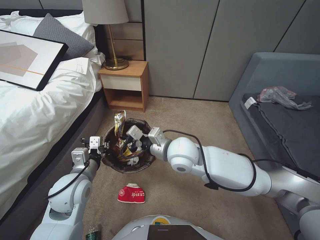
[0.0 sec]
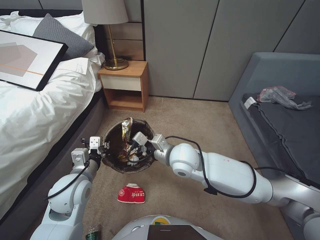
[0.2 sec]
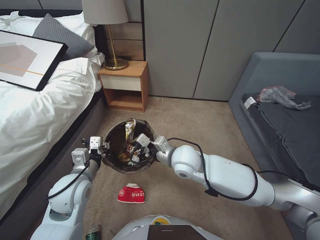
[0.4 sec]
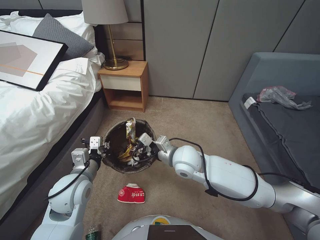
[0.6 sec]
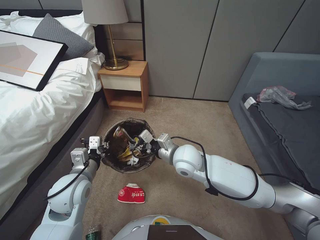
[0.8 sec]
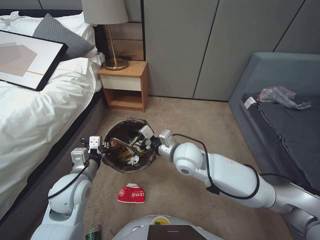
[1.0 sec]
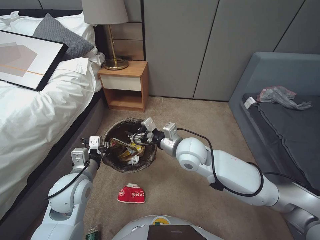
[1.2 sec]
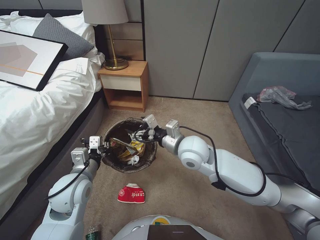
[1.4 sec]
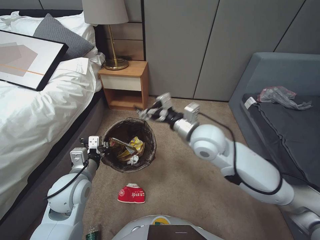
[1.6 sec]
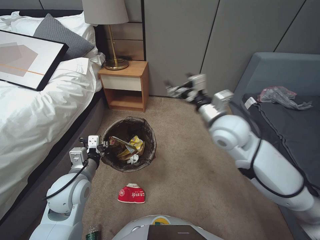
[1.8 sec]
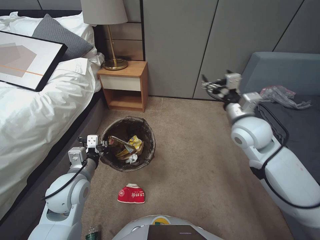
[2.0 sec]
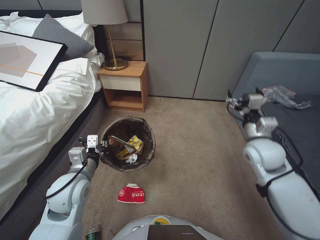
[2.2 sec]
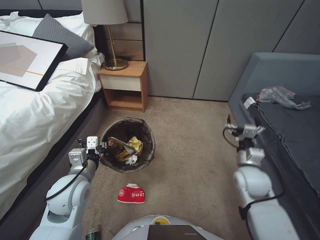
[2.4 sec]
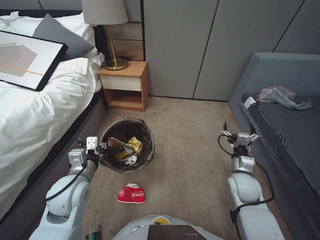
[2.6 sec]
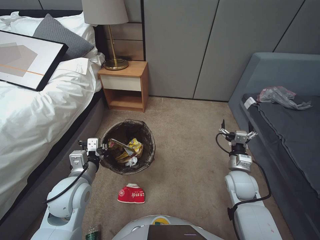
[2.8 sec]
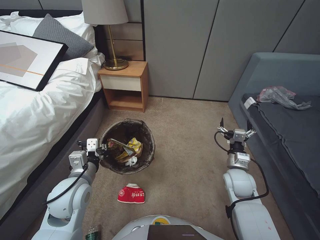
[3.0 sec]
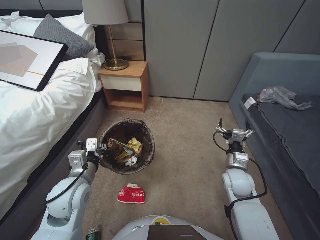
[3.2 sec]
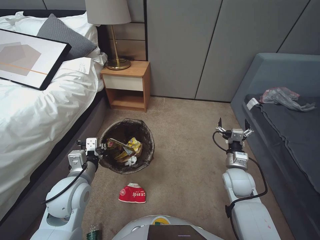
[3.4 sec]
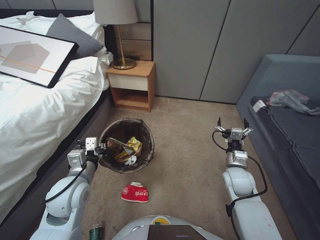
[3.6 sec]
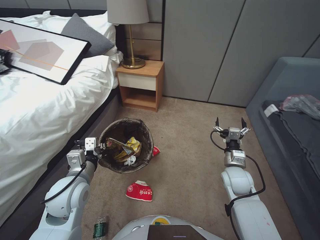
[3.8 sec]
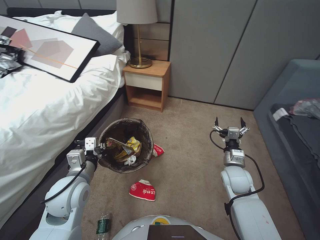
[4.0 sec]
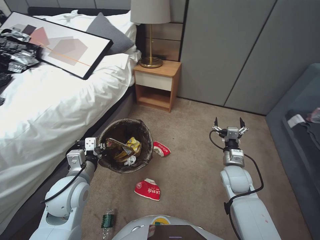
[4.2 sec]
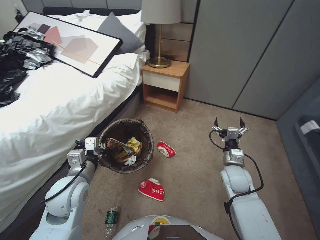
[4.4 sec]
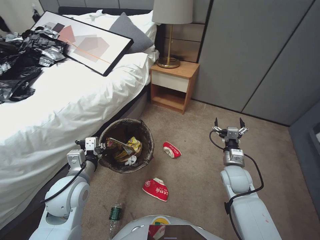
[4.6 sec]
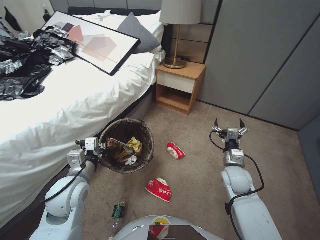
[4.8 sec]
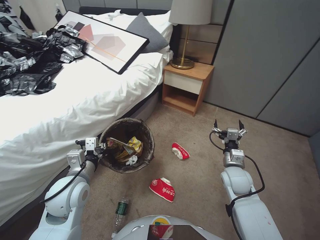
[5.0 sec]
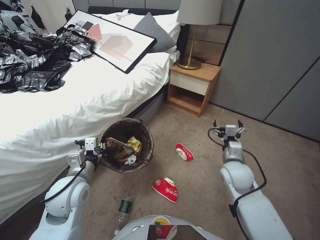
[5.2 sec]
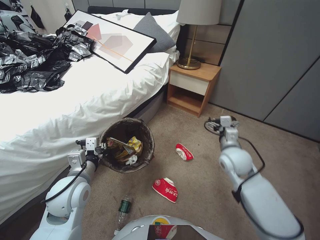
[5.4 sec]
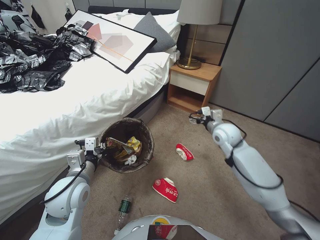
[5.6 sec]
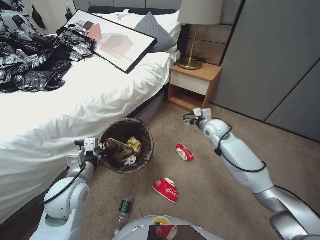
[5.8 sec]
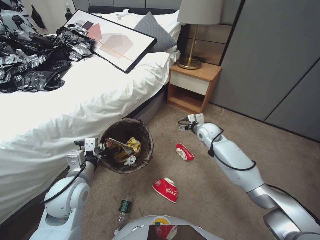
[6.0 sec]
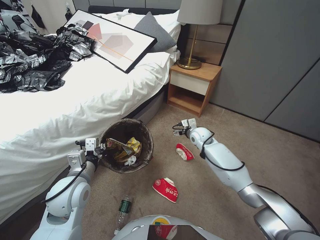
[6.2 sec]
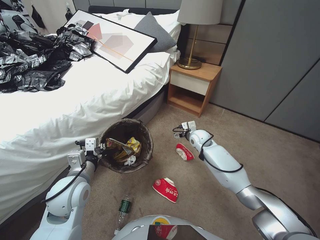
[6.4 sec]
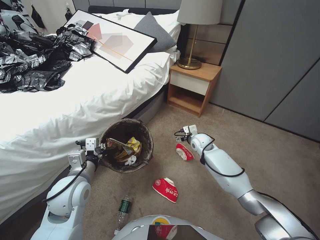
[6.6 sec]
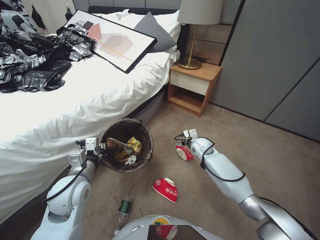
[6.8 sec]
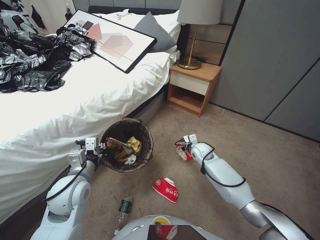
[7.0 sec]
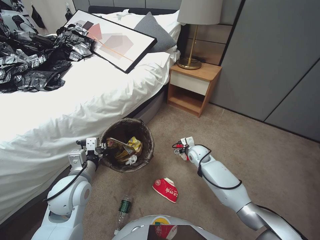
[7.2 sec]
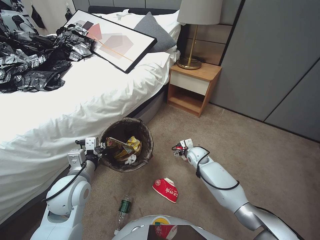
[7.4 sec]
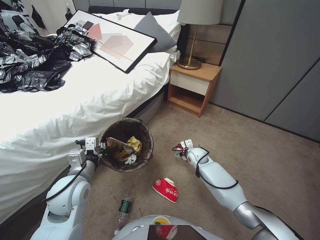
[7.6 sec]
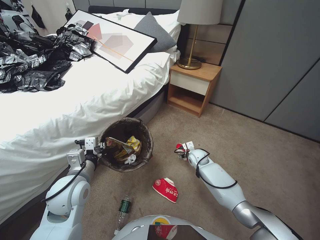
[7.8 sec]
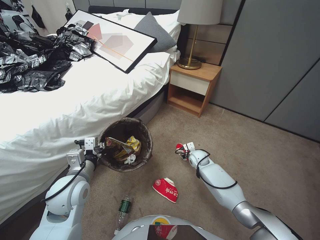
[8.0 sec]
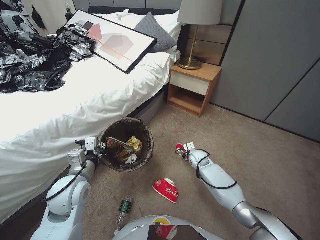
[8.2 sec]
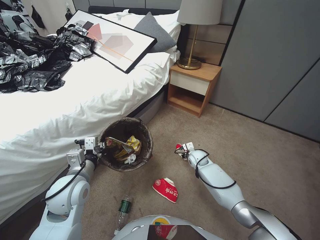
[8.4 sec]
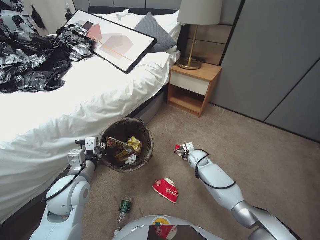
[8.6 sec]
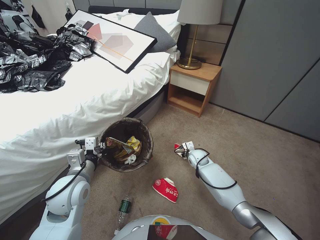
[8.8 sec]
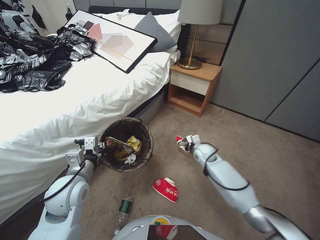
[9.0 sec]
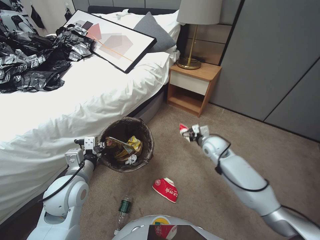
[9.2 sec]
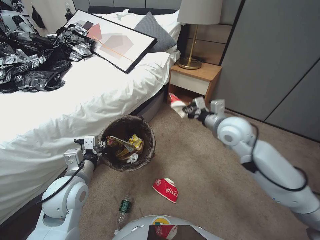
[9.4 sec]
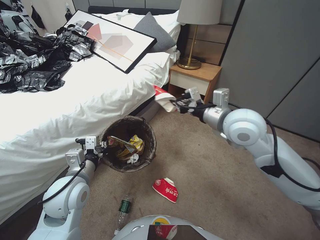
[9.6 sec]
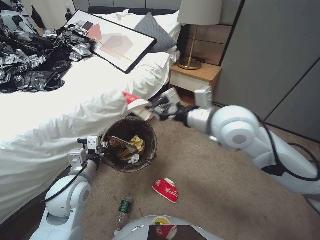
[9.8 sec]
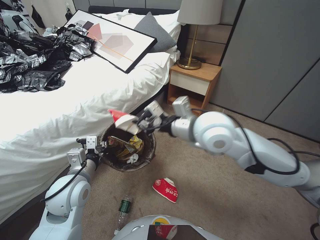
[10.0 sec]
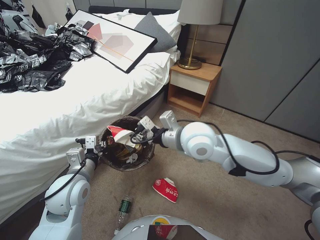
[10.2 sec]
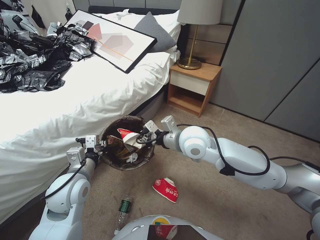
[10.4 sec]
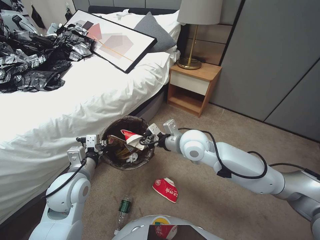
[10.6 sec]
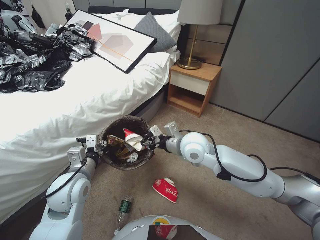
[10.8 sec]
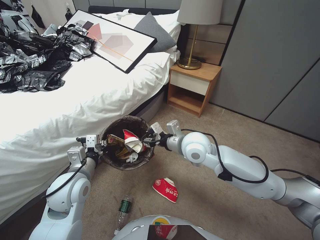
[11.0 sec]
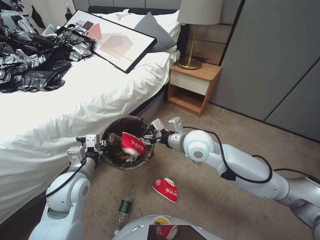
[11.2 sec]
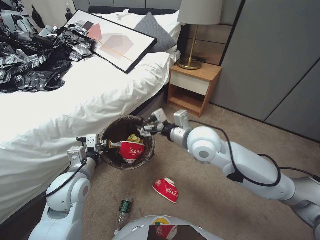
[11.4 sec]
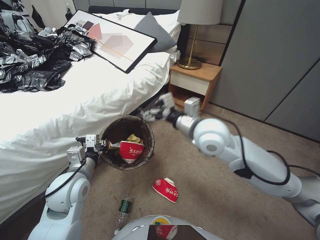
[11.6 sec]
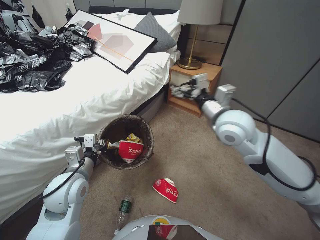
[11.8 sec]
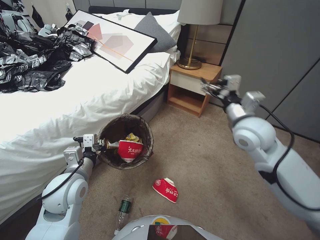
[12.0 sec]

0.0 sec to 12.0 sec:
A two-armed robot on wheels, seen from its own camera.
Task of the whole recording: Pick up the trash bin, then pick up the garbage from the floor and place it into the trash bin.
0.0 sec to 1.6 sec: The right gripper opens its fingers.
1.6 sec to 3.0 sec: The right gripper shifts roughly 25 cm to the right and downward.
4.4 sec to 6.0 sec: The right gripper goes roughly 20 cm forward.
6.0 sec to 7.6 sec: The right gripper moves downward, some 15 cm.
7.6 sec to 9.0 sec: The right gripper closes up.
9.0 sec to 10.4 sec: The right gripper travels upward by about 30 cm.
10.4 sec to 12.0 sec: The right gripper goes approximately 15 cm to the right, and opens.

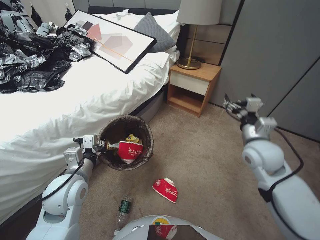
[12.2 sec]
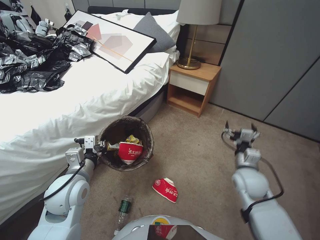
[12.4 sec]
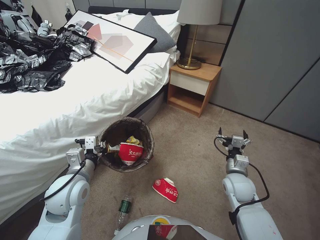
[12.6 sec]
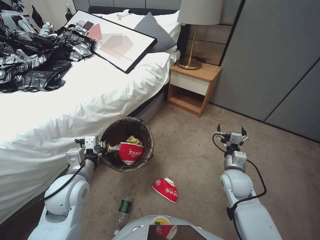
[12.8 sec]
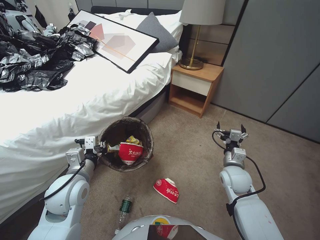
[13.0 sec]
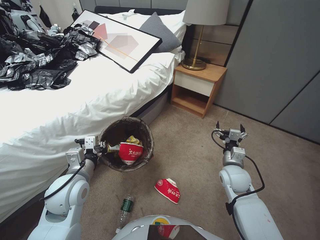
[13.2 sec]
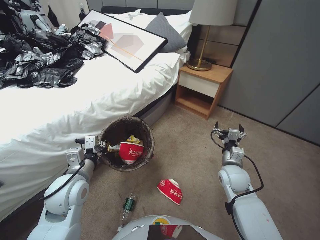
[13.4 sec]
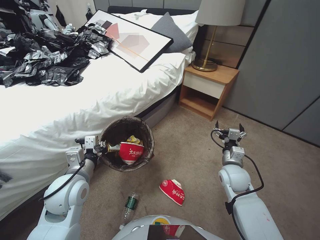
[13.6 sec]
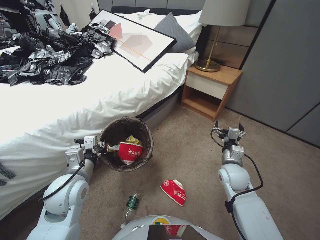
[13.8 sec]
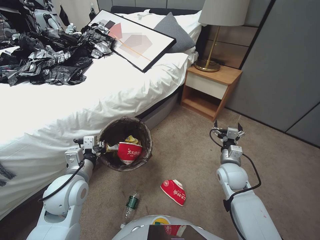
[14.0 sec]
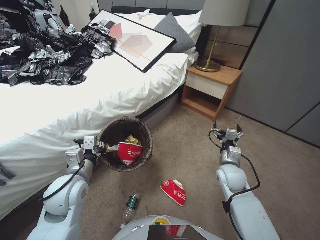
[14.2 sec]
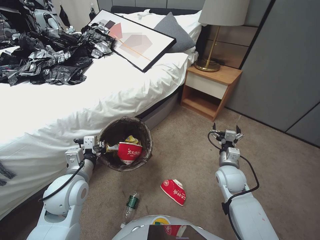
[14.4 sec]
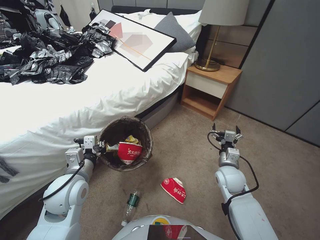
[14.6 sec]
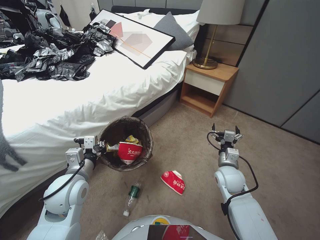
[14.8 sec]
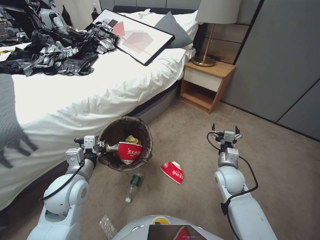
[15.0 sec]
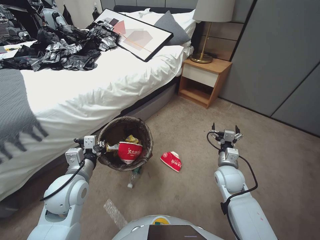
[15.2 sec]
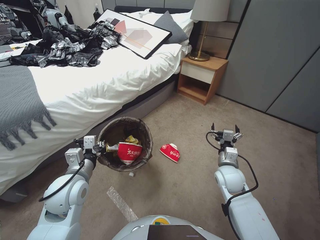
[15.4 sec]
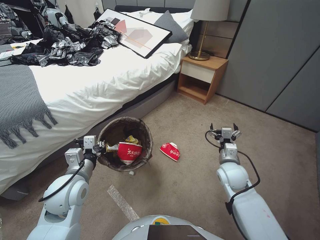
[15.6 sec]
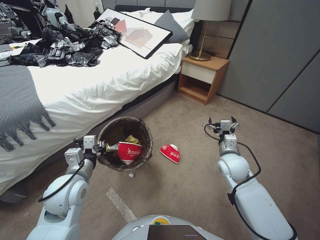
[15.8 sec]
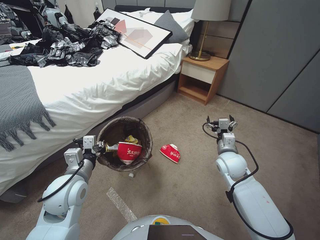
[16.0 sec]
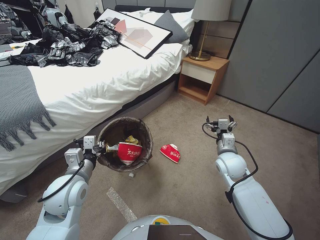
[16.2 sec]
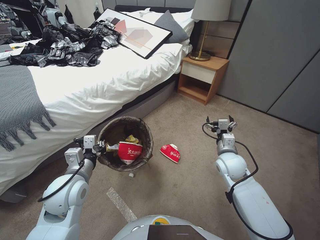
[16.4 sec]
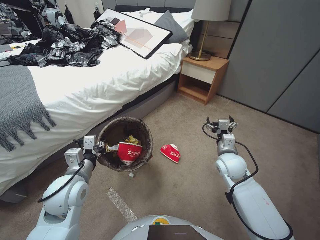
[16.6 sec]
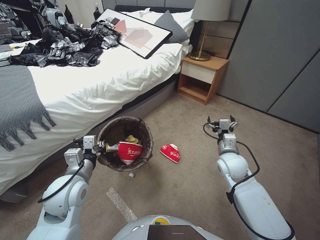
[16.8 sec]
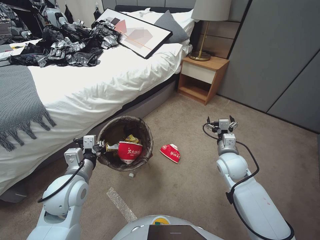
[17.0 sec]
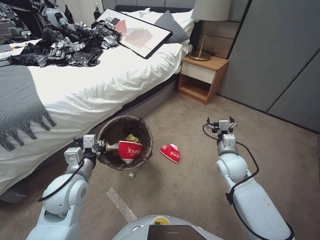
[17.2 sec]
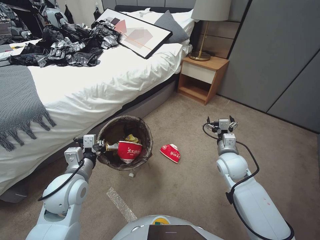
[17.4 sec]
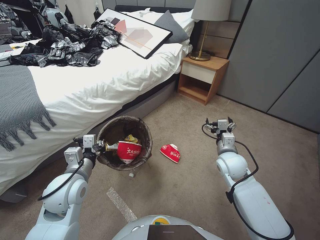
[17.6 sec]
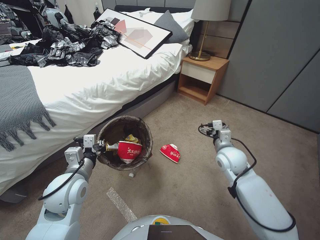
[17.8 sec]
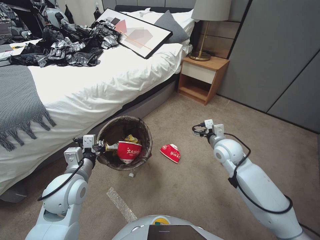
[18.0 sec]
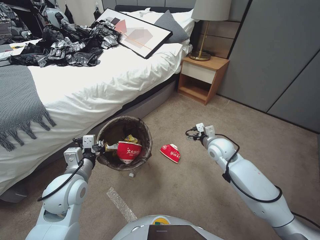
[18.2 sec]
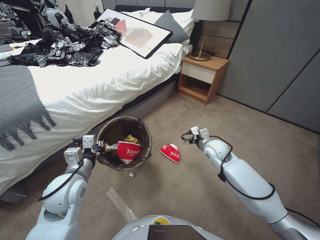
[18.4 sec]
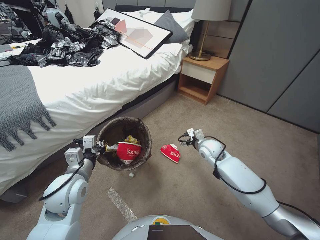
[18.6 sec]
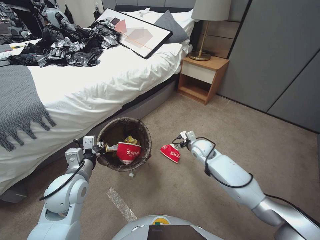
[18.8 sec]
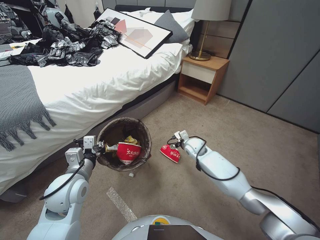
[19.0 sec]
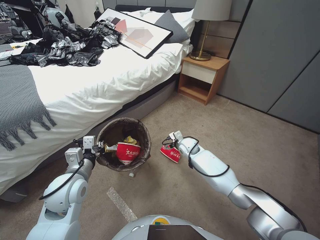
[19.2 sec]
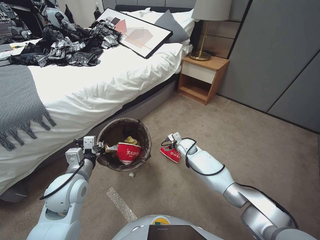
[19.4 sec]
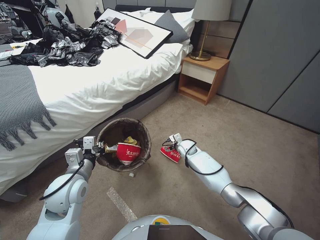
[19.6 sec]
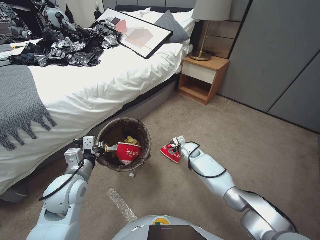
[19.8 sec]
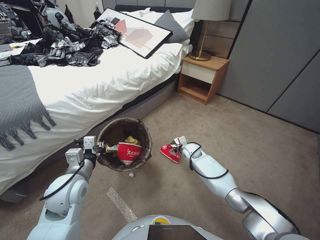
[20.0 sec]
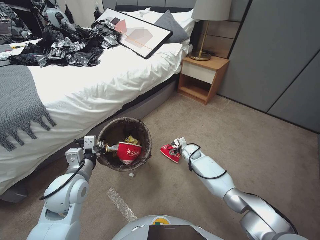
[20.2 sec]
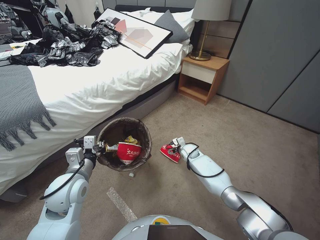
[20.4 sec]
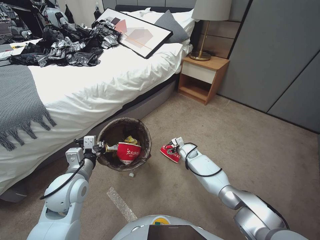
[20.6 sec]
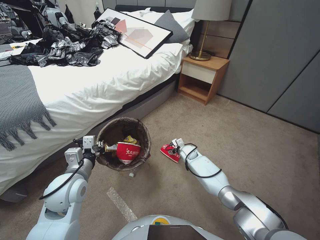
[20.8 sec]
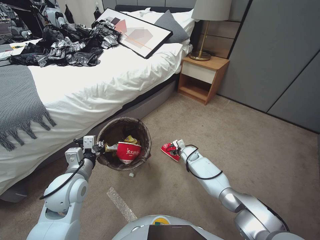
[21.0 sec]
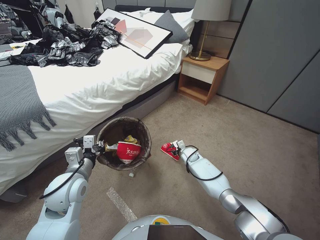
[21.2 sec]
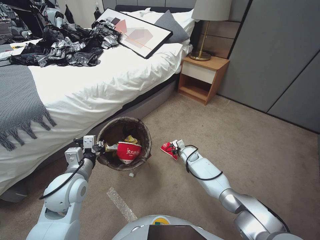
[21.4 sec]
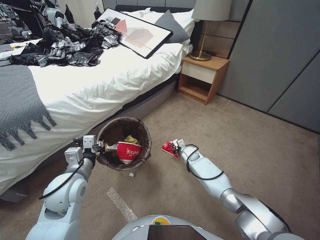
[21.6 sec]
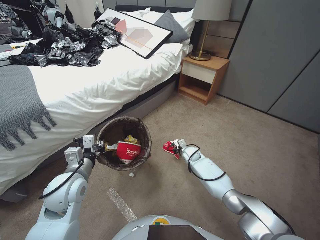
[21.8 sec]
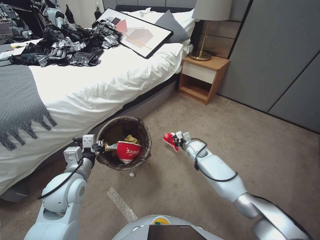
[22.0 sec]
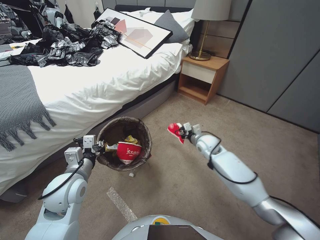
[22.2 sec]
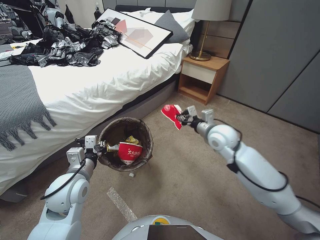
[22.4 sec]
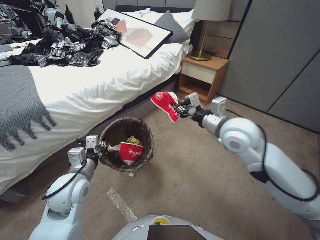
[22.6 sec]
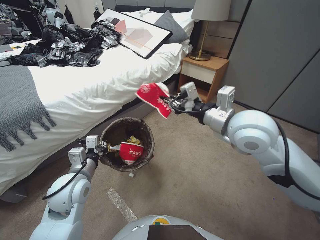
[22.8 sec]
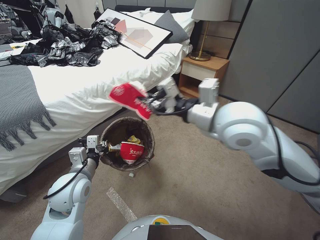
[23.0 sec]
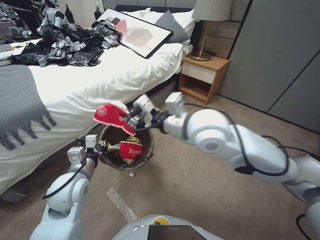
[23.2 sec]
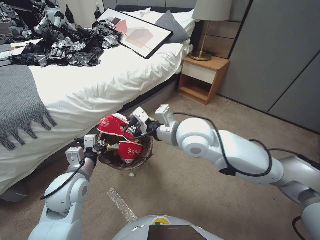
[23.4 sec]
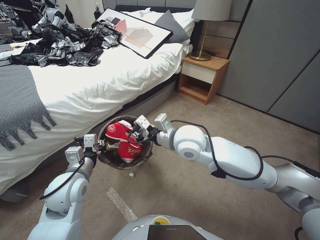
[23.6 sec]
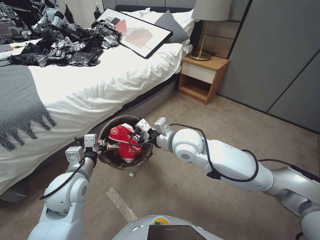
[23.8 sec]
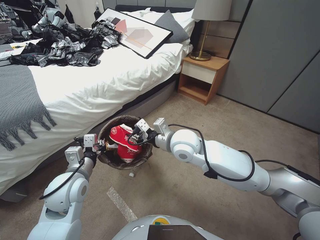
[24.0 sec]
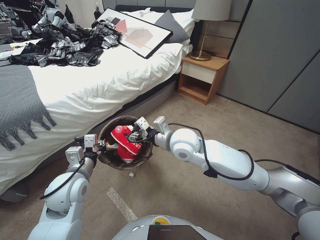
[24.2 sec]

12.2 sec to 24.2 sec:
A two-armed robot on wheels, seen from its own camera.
Task of the whole recording: Pick up the trash bin, then pick up the garbage from the floor and place it into the trash bin.
12.2 sec to 13.8 sec: The right gripper goes some 20 cm downward.
15.2 sec to 16.6 sec: The right gripper ends up about 5 cm from where it was.
16.6 sec to 18.2 sec: The right gripper shifts roughly 5 cm forward.
18.2 sec to 19.8 sec: The right gripper travels downward, forward and to the left by some 20 cm.
19.8 sec to 21.2 sec: The right gripper is displaced downward by roughly 5 cm, and closes up.
21.2 sec to 22.6 sec: The right gripper shifts about 35 cm upward, and closes up.
22.6 sec to 24.2 sec: The right gripper moves to the left, some 15 cm, and moves approximately 10 cm upward and comes back.
